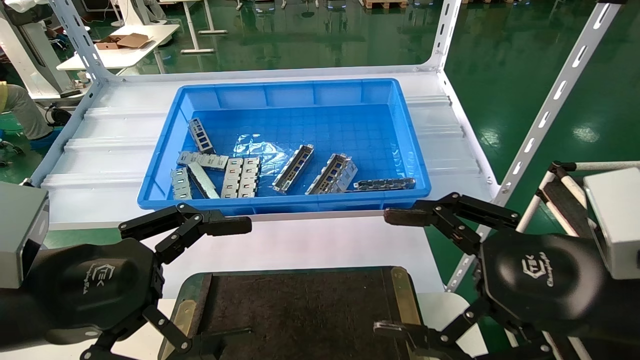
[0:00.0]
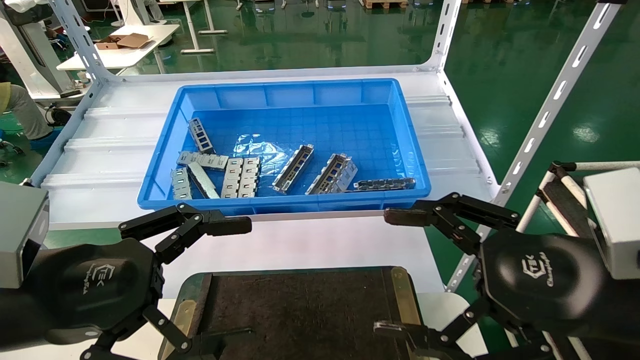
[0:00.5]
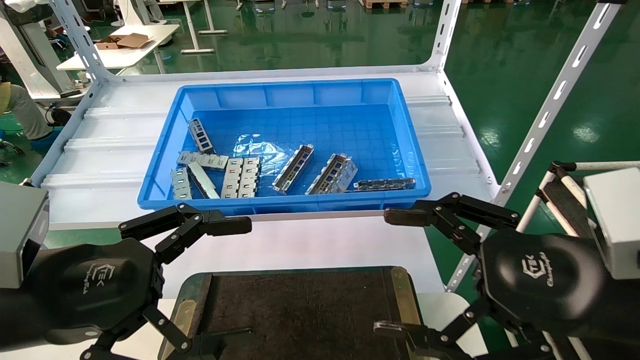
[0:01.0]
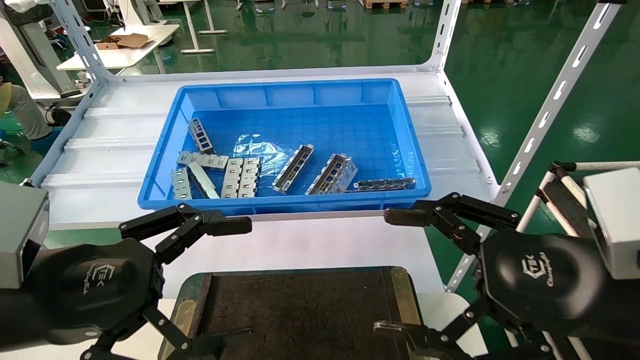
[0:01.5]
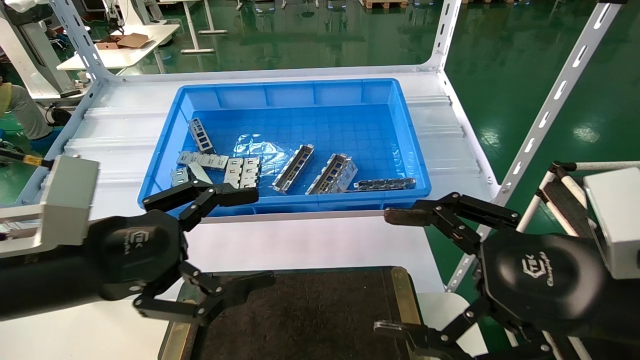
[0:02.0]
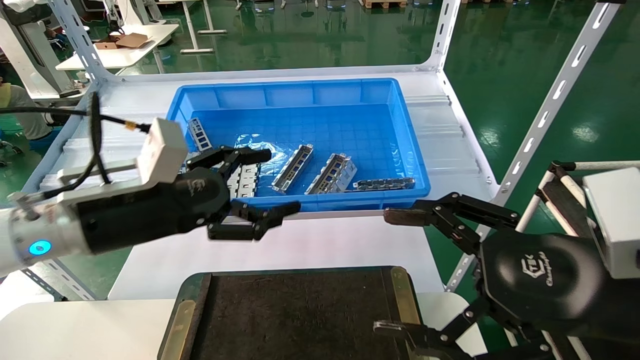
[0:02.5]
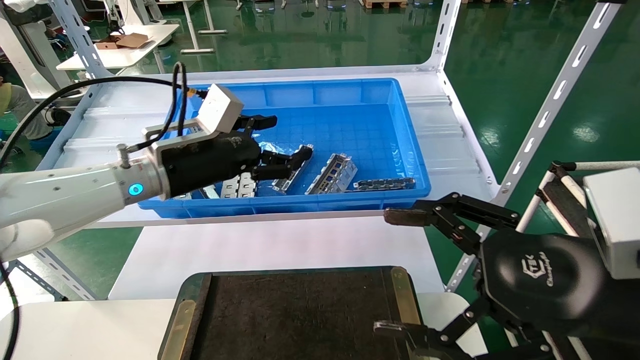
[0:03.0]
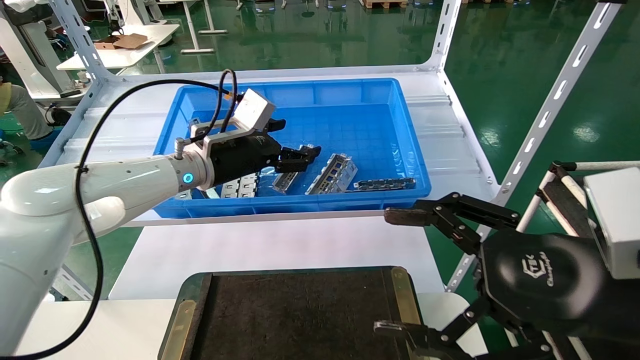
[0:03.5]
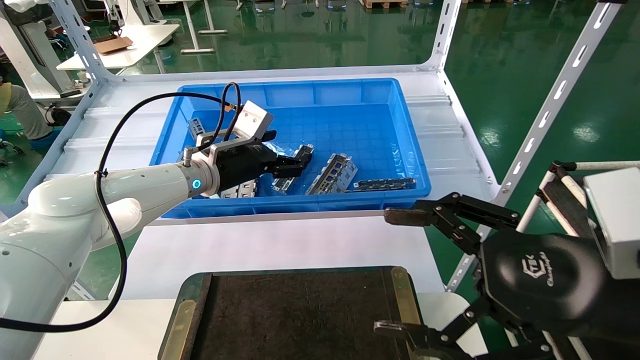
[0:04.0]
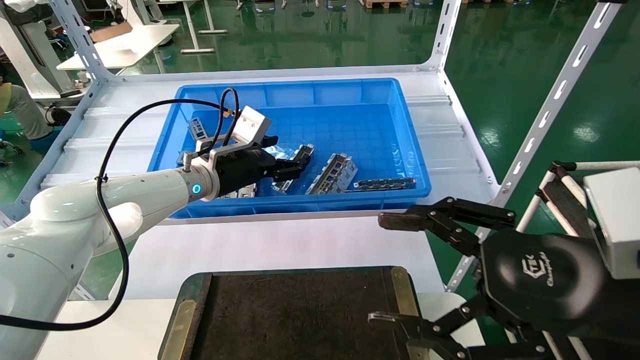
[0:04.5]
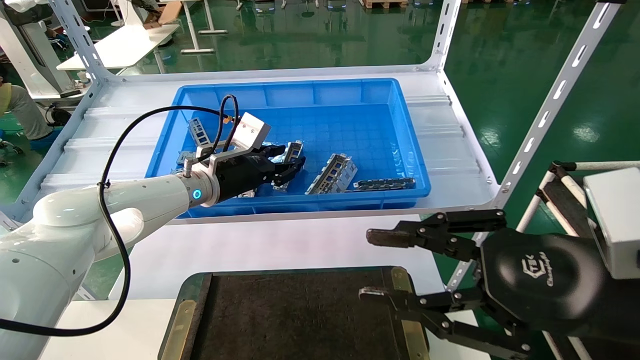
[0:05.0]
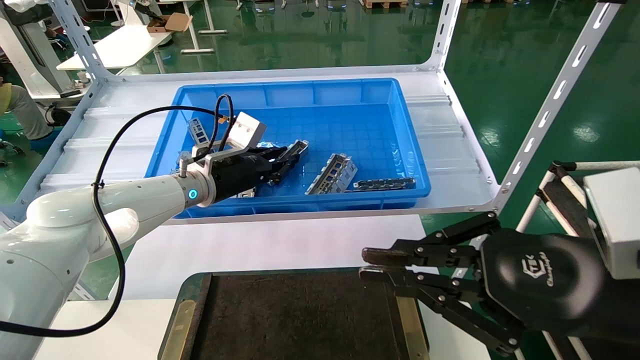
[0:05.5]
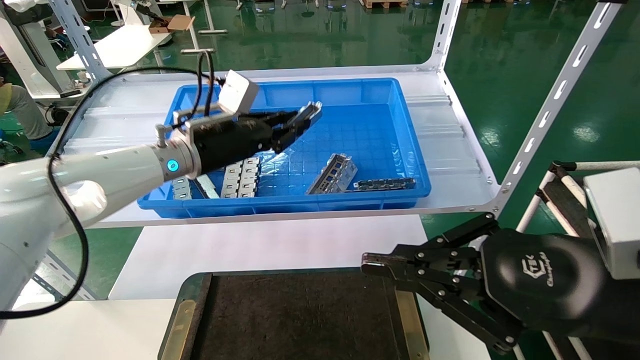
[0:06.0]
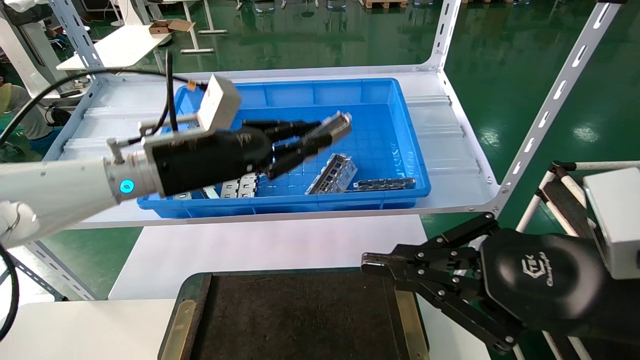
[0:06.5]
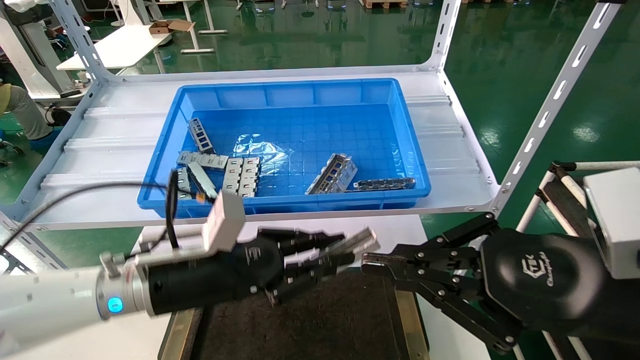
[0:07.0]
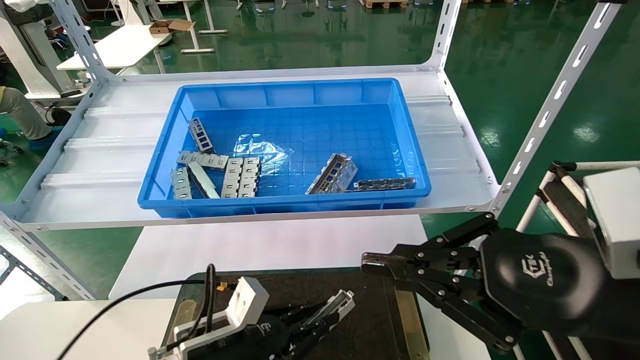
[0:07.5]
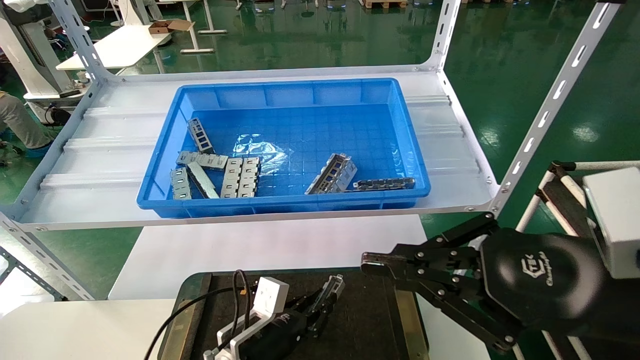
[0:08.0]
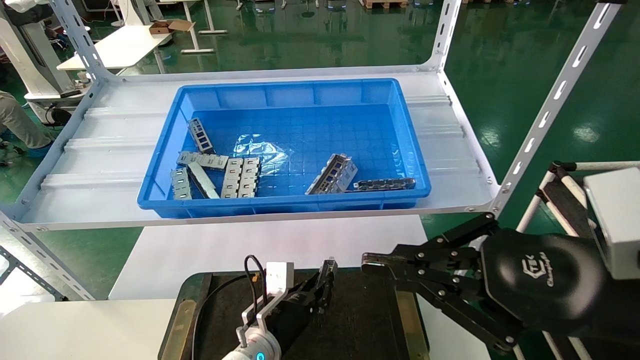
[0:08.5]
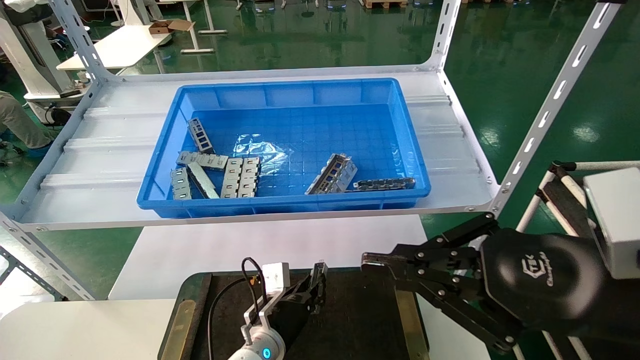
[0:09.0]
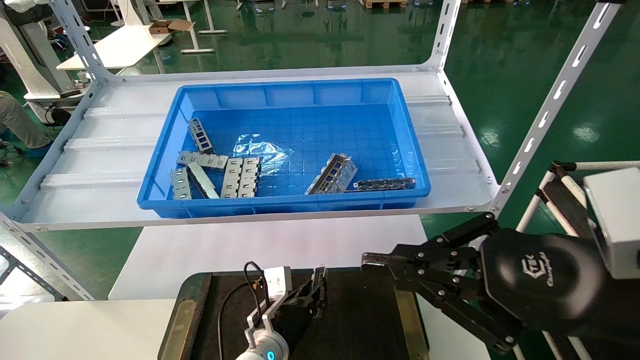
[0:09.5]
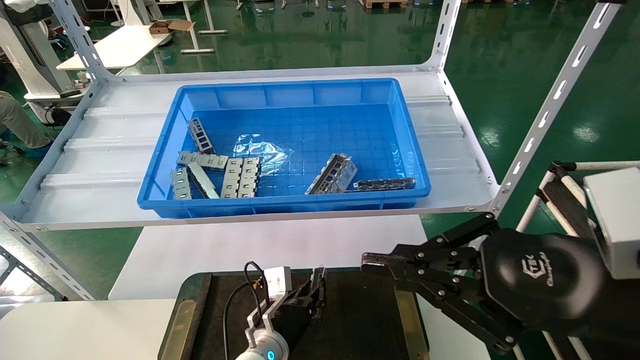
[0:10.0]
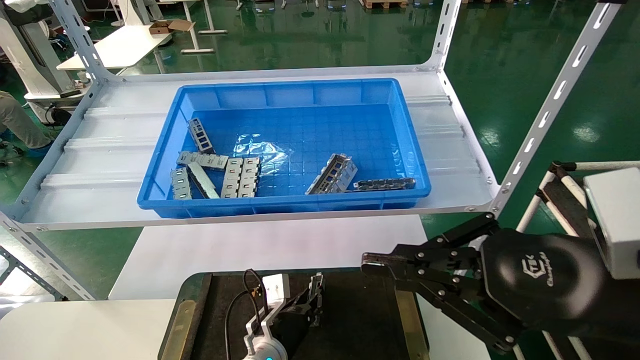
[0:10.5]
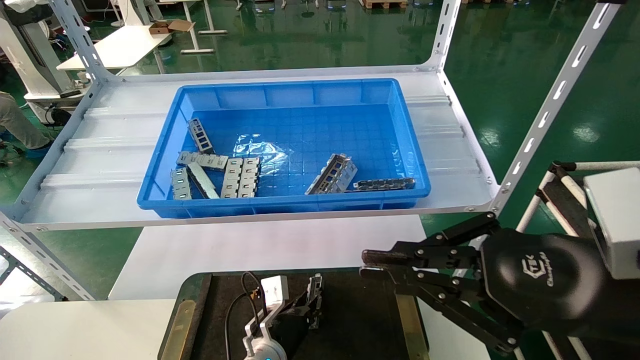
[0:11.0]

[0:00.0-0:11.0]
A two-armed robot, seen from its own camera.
Task of the whole recording: Grasp the part with one hand and place it on the black container.
Step, 0:02.5 to 0:06.5: Pick up the front USB bracket from the feeding area.
0:00.0 to 0:02.0: The grippers stay close to where they were, moving slightly.
0:02.0 to 0:03.5: The left gripper travels forward by about 25 cm.
0:03.5 to 0:05.5: The right gripper closes. Meanwhile the left gripper closes its fingers.
0:05.5 to 0:07.5: The left gripper heads downward and backward, covering some 25 cm.
0:07.5 to 0:09.0: The left gripper travels forward, to the right and downward by some 15 cm.
0:09.0 to 0:11.0: The grippers make only small movements.

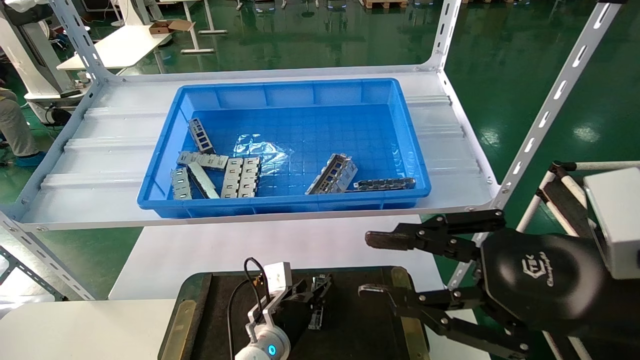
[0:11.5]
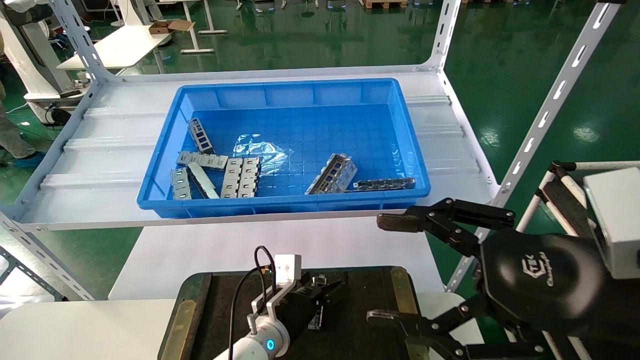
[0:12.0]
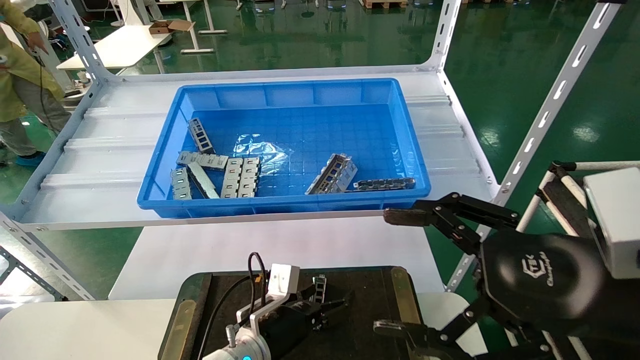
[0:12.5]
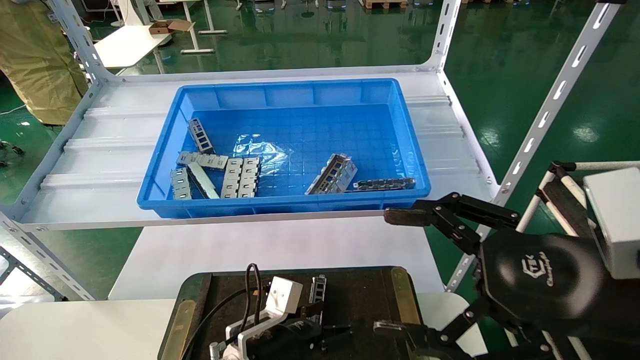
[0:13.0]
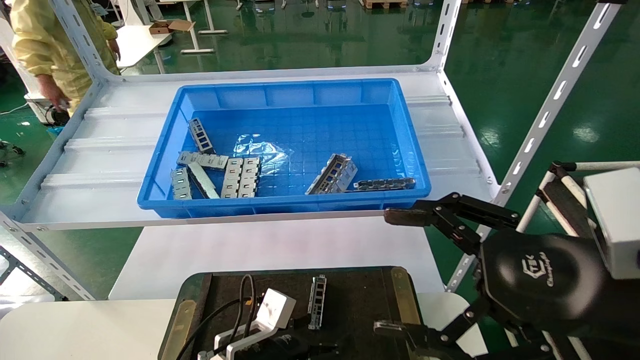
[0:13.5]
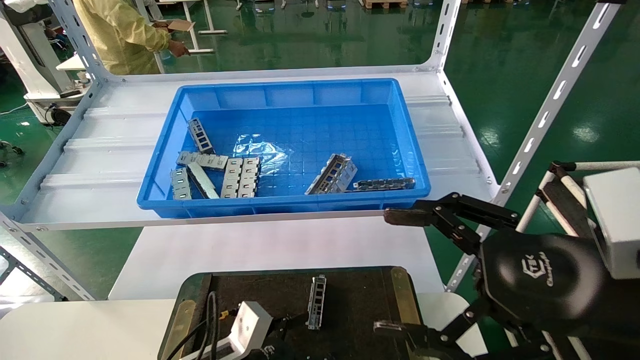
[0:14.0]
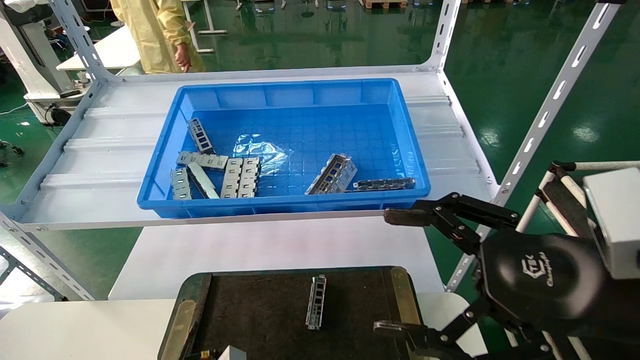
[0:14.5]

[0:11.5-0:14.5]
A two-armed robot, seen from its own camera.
Task of the whole recording: Grasp the part with one hand and place it on the black container.
0:11.5 to 0:13.0: The right gripper opens; the left gripper moves backward, some 10 cm, and opens up.
0:13.0 to 0:14.5: The left gripper is displaced backward and to the left by some 15 cm.
